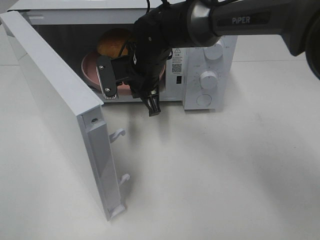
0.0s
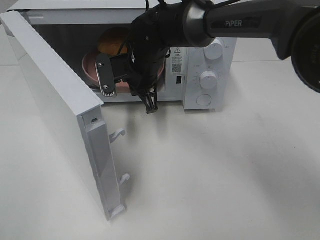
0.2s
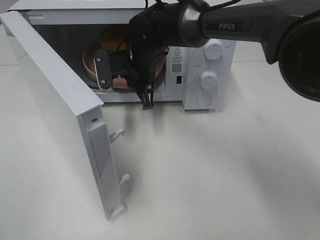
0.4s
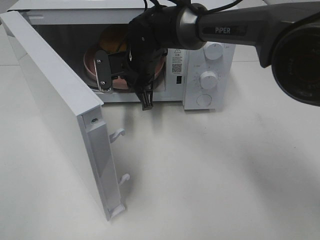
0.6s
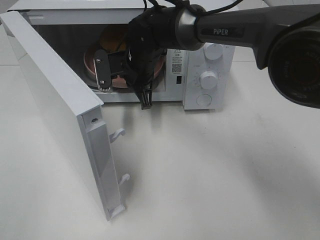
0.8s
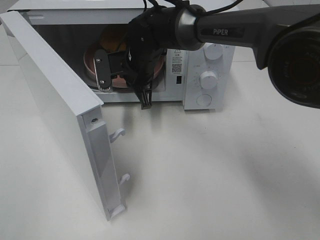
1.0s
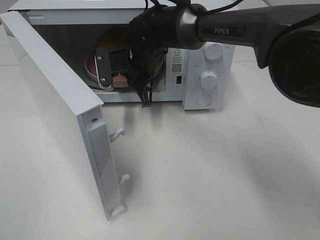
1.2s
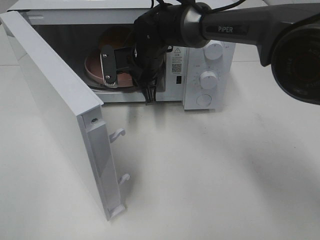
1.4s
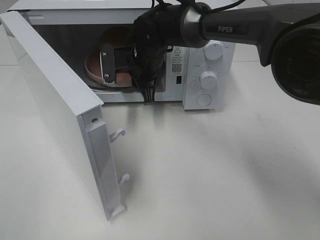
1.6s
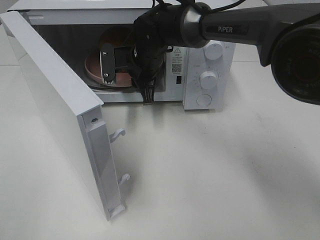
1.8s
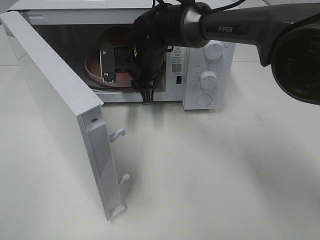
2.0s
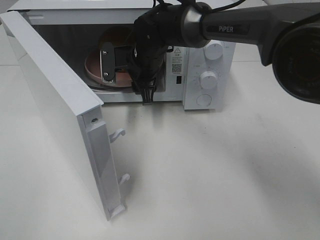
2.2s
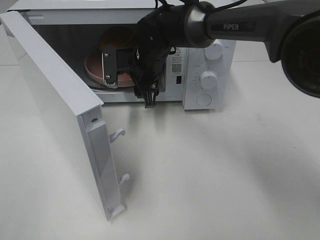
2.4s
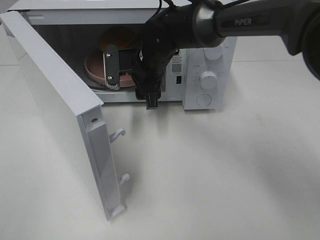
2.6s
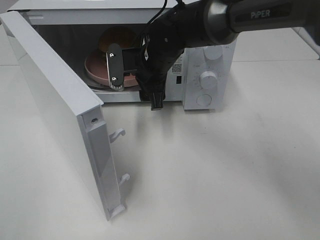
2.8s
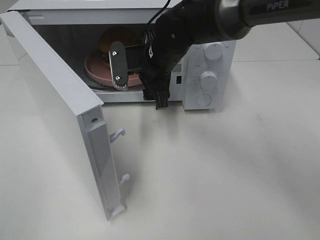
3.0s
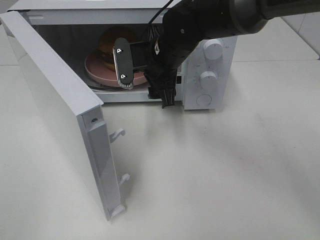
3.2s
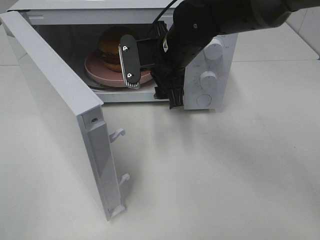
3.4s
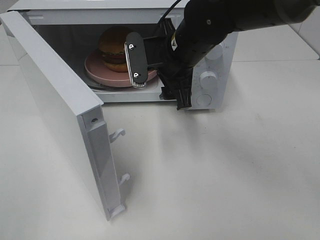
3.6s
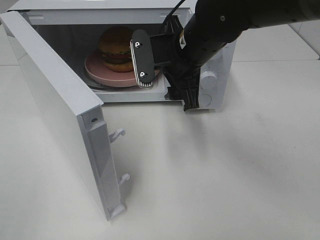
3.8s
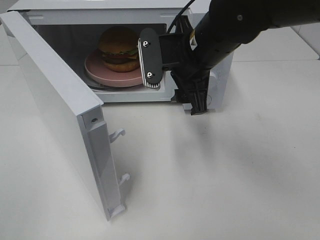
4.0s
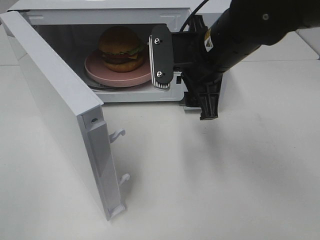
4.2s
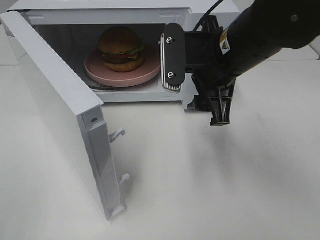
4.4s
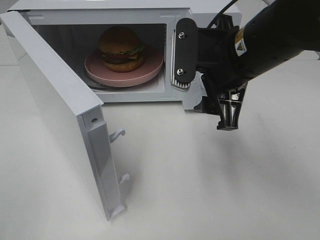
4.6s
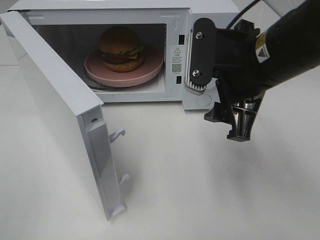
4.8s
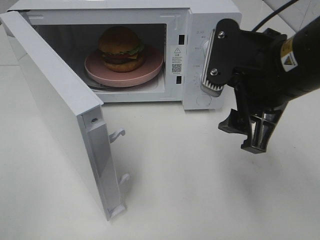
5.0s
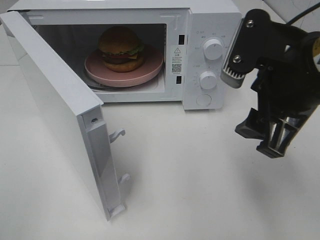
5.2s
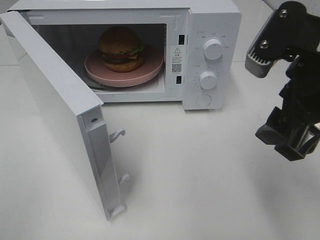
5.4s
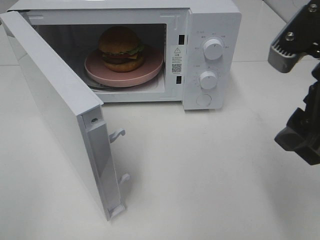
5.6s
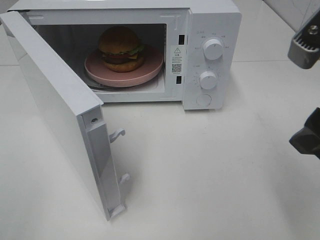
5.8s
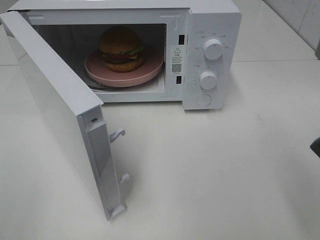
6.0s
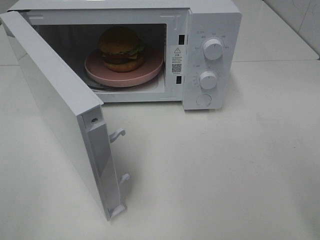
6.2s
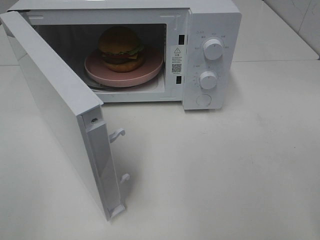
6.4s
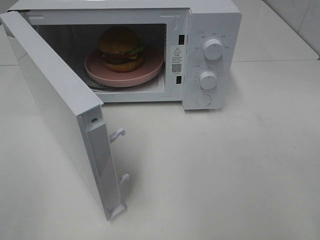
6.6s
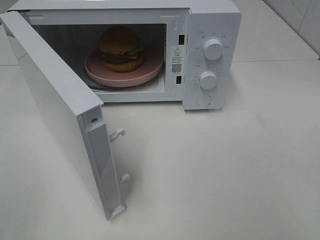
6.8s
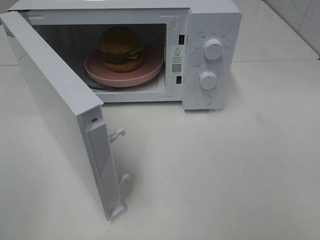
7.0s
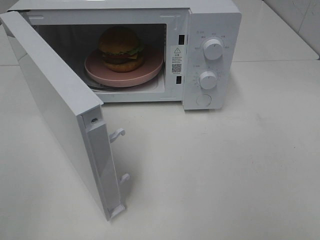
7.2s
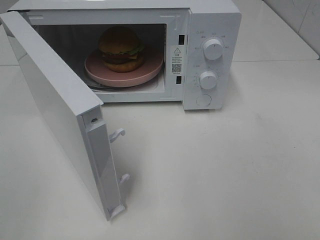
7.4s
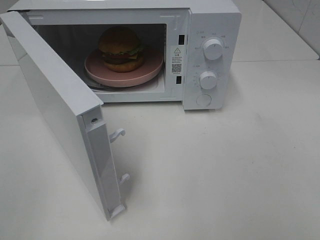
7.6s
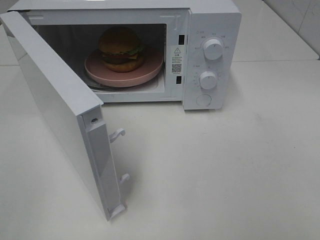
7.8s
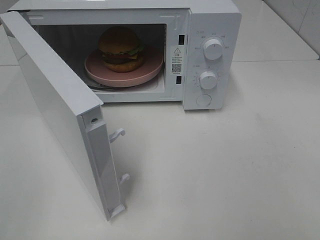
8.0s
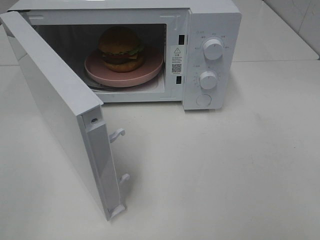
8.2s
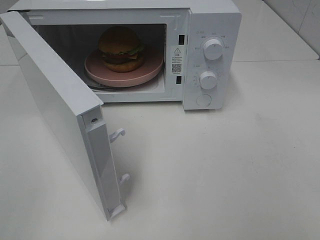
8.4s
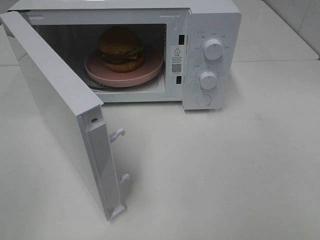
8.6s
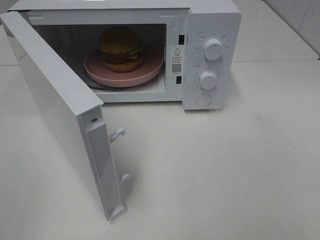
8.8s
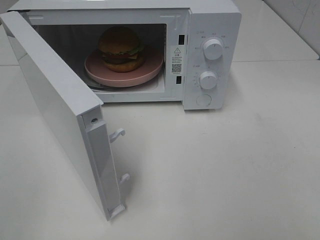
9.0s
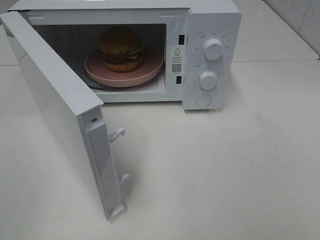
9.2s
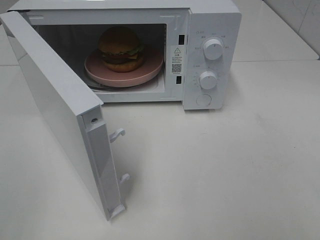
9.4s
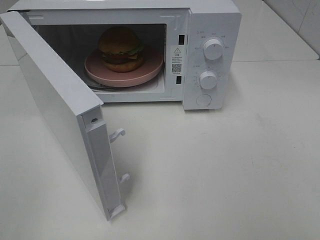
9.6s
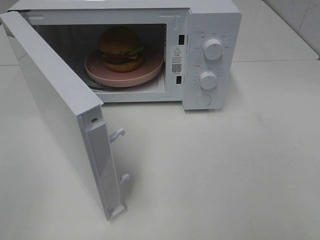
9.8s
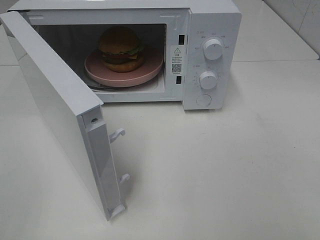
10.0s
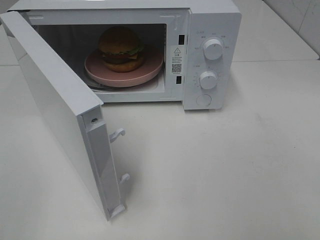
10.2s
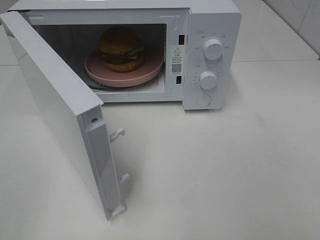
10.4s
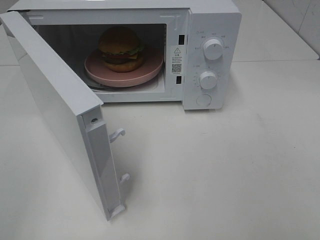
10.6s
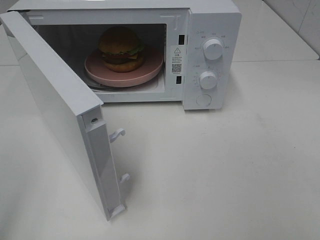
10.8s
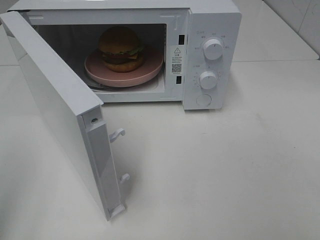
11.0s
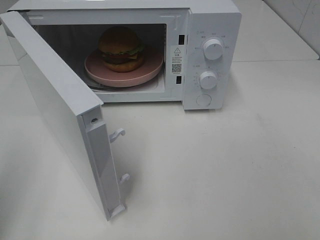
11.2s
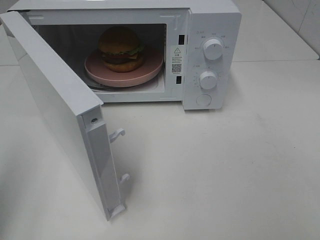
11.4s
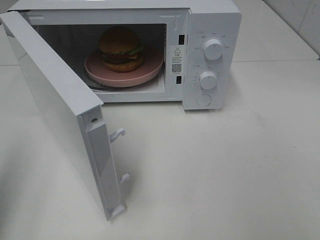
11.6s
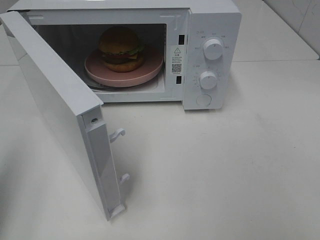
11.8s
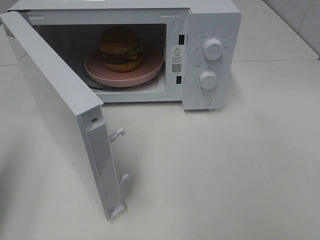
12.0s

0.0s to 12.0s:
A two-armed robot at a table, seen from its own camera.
Task of the whole recording: Heat the burger.
0.0s to 1.6s: The right gripper opens.
1.6s to 3.0s: The right gripper moves approximately 5 cm, and opens up.
3.0s to 4.4s: The right gripper moves backward, to the right and upward, approximately 15 cm.
4.4s to 6.0s: The right gripper is displaced backward, to the right and upward by roughly 20 cm.
10.4s to 12.0s: The left gripper moves forward, roughly 10 cm, and closes up.

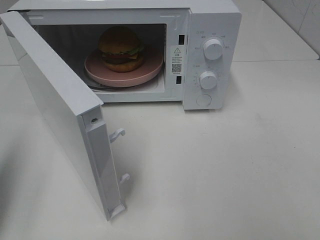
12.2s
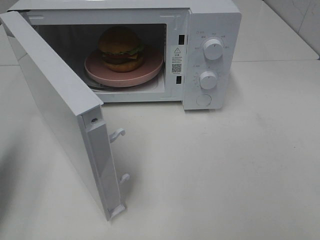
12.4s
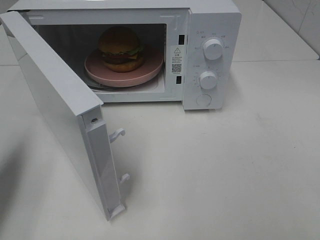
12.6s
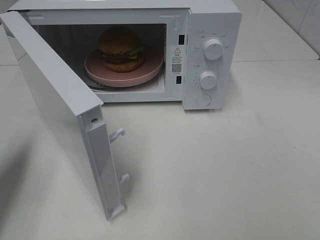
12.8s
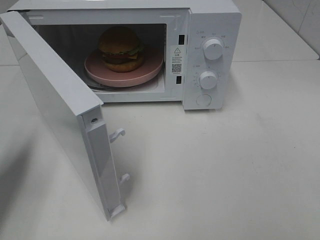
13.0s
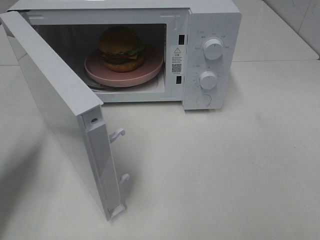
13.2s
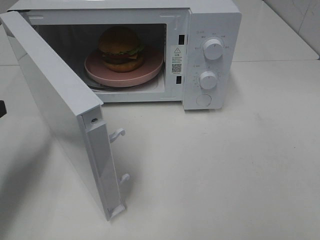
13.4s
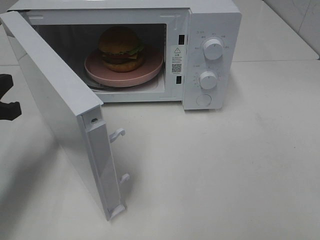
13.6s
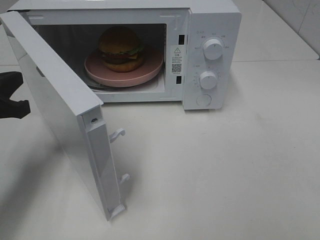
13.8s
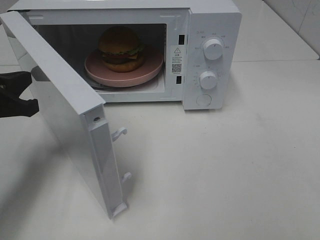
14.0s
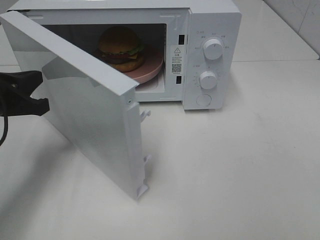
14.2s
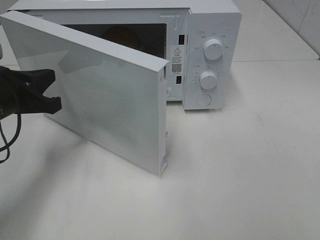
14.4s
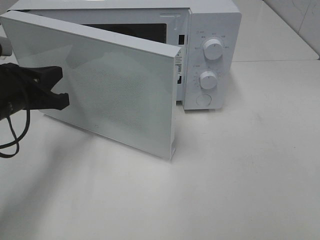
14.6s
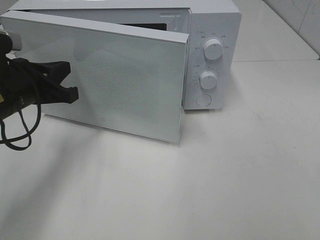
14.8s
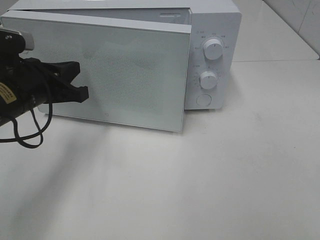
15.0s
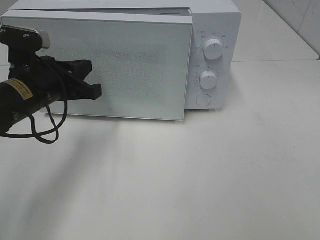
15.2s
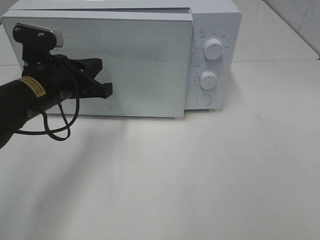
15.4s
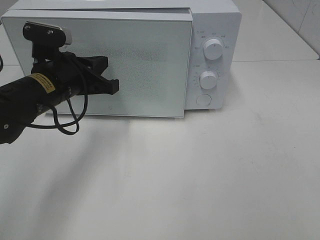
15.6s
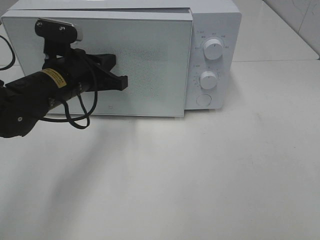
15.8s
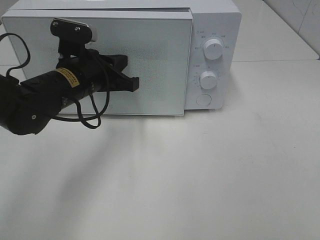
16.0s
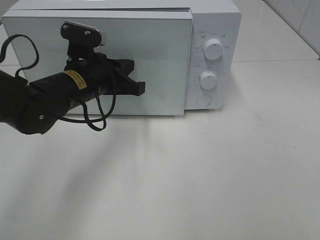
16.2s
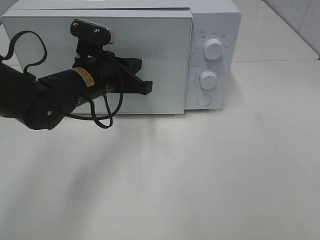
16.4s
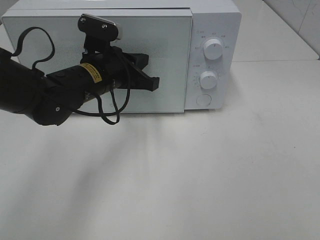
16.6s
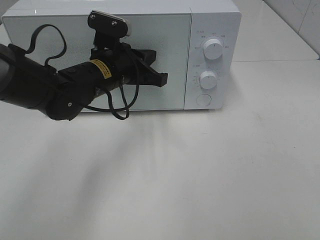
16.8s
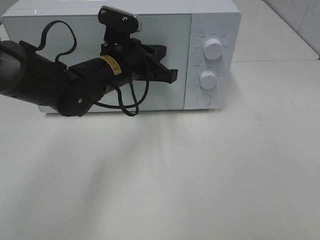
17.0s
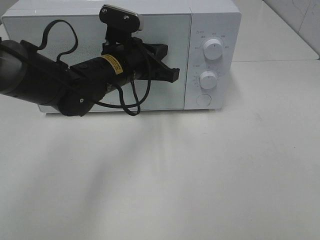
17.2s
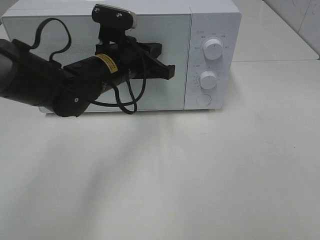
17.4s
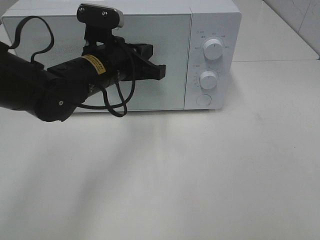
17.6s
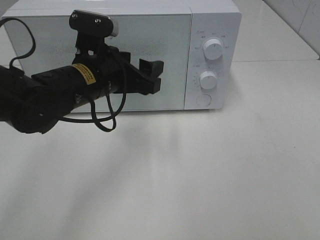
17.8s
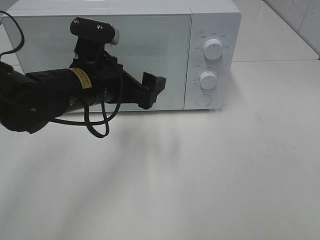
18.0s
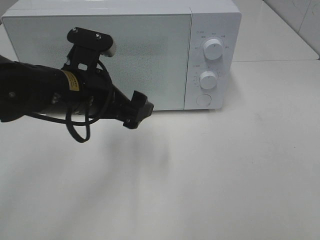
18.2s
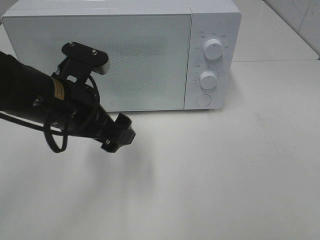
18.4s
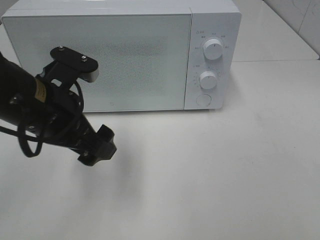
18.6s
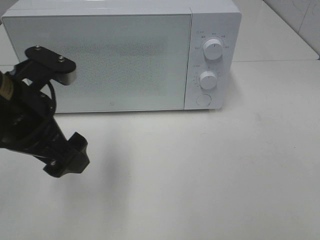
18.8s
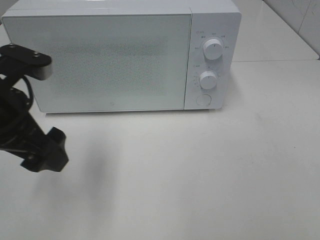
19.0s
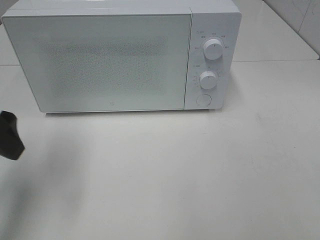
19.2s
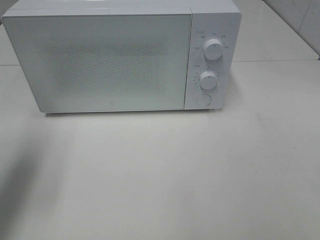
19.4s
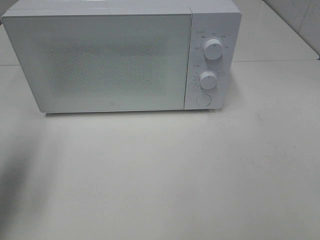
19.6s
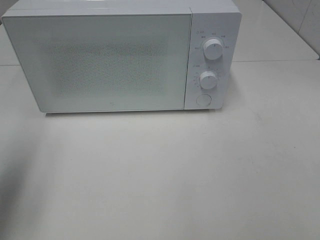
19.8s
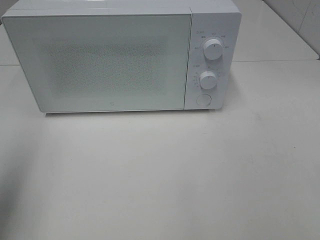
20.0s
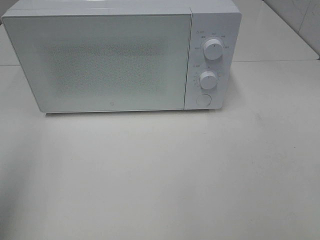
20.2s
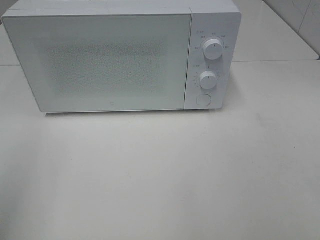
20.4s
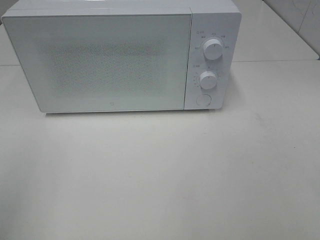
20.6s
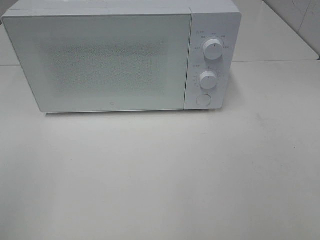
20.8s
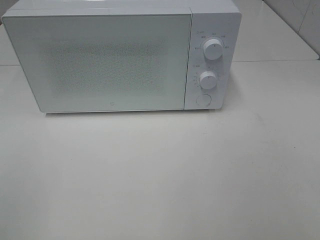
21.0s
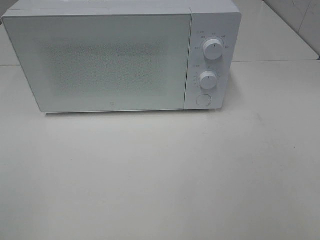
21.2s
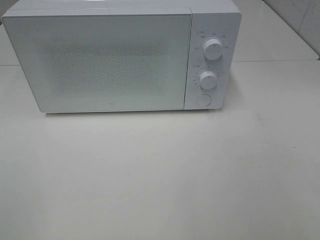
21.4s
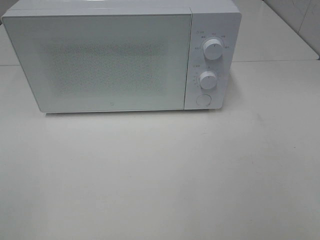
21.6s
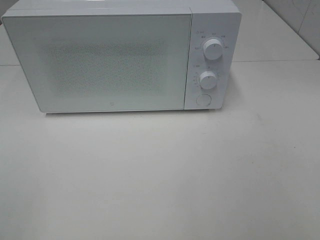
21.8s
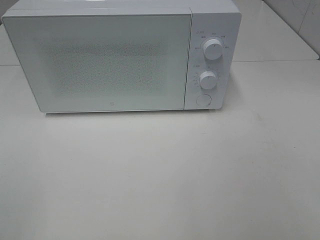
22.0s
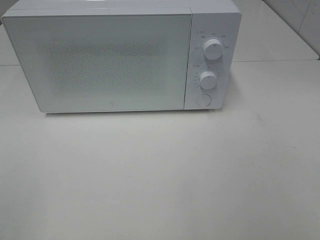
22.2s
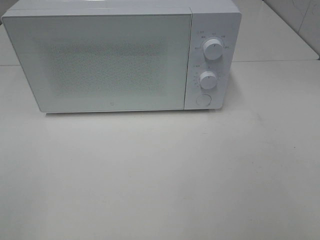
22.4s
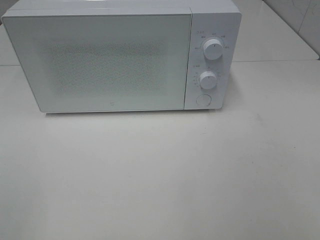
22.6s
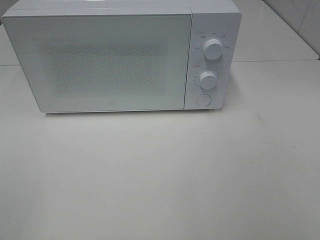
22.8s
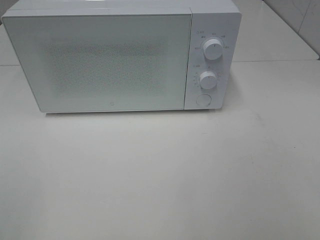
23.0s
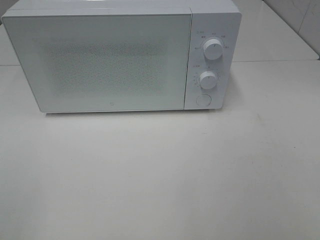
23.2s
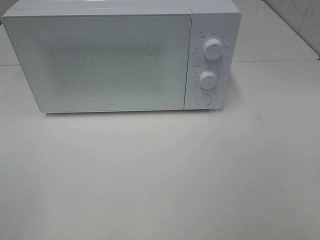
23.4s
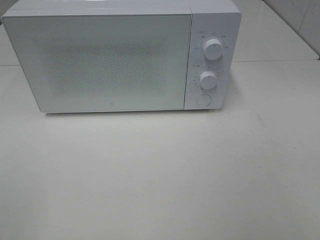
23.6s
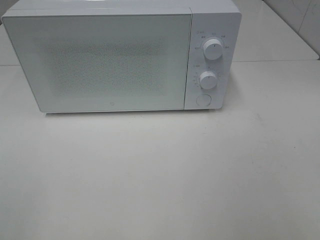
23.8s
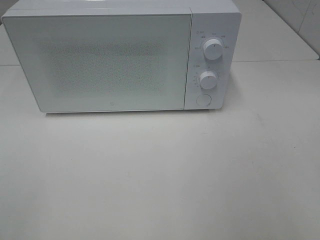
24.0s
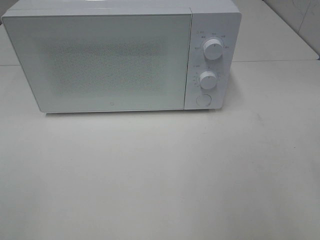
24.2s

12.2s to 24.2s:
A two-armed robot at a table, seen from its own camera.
Task of the whole recording: Heat the burger.
Step, 12.2s to 17.4s: Left hand: close the microwave door.
12.2s to 13.8s: The left gripper is displaced forward, downward and to the right by approximately 15 cm.
13.8s to 15.2s: The left gripper shifts some 10 cm to the right and forward.
15.2s to 16.6s: The left gripper is displaced to the right by approximately 10 cm.
16.6s to 18.2s: The left gripper moves backward, approximately 10 cm, and opens its fingers.
18.2s to 19.8s: The left gripper is displaced to the left, upward and backward by roughly 25 cm.
19.8s to 21.2s: The left gripper goes about 20 cm backward.
